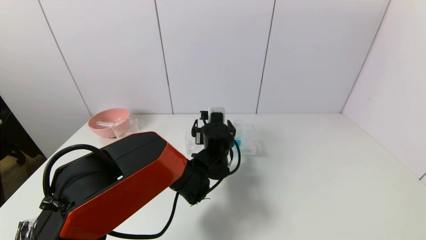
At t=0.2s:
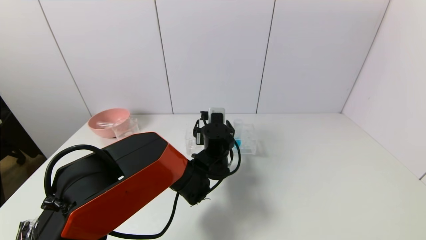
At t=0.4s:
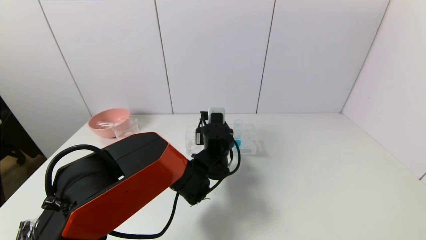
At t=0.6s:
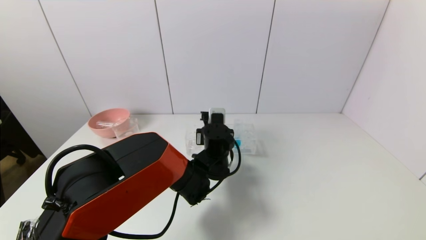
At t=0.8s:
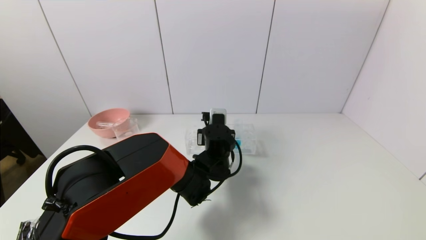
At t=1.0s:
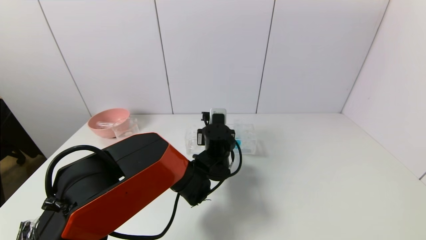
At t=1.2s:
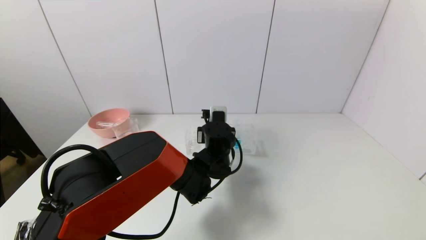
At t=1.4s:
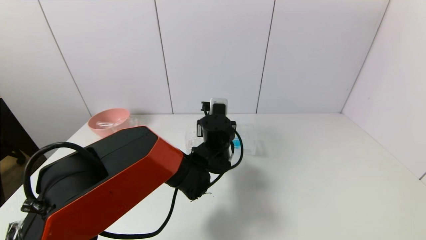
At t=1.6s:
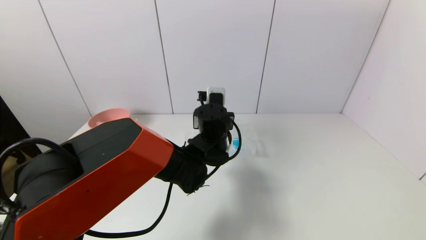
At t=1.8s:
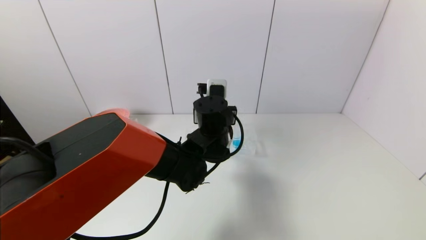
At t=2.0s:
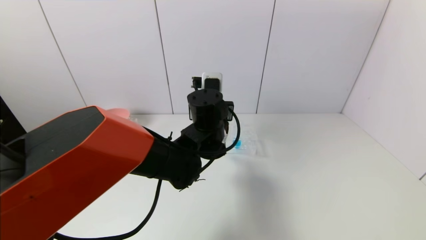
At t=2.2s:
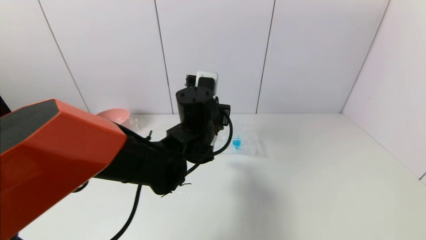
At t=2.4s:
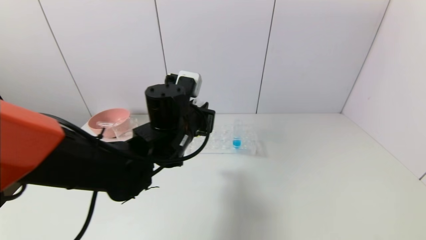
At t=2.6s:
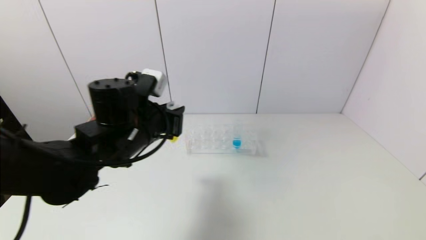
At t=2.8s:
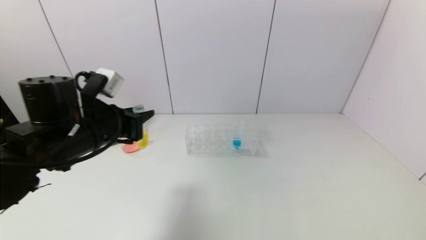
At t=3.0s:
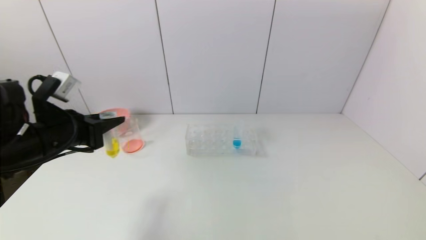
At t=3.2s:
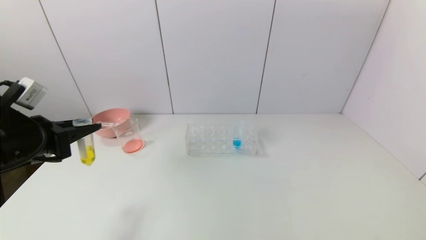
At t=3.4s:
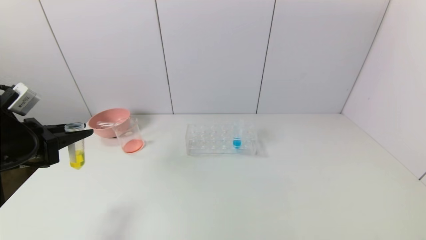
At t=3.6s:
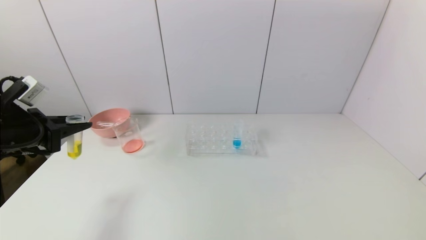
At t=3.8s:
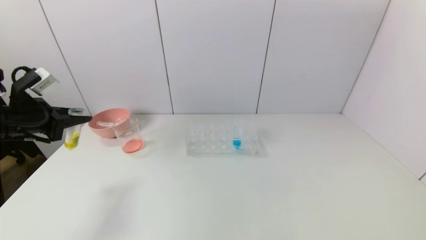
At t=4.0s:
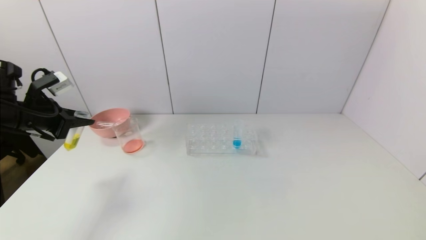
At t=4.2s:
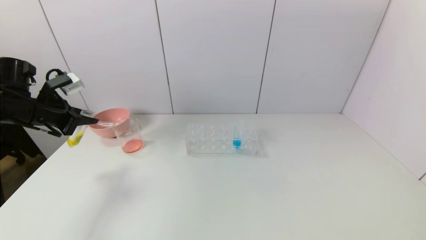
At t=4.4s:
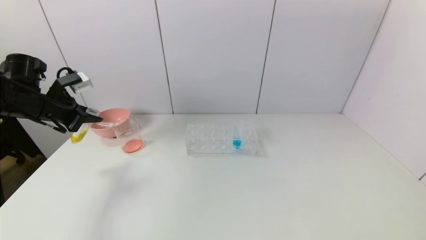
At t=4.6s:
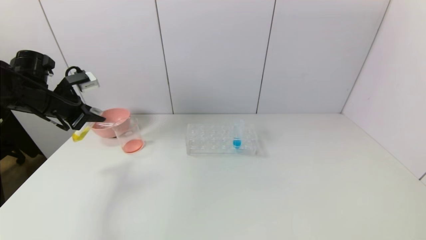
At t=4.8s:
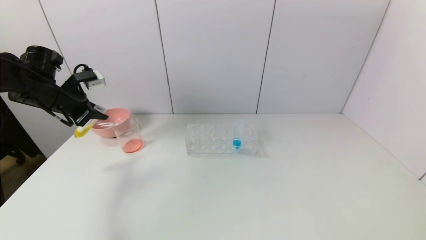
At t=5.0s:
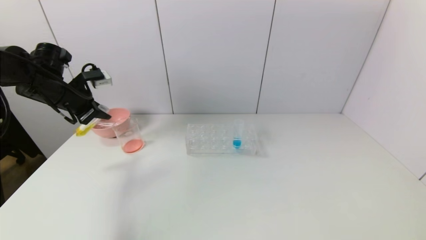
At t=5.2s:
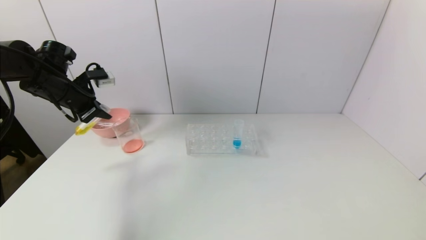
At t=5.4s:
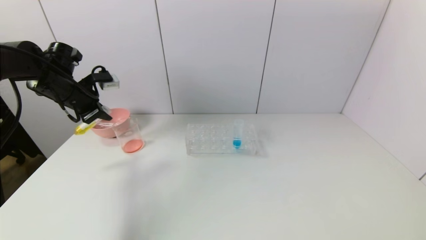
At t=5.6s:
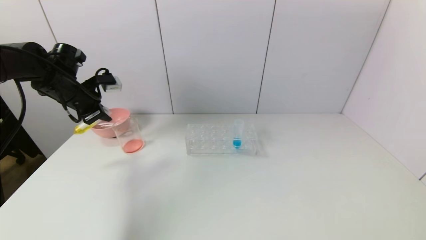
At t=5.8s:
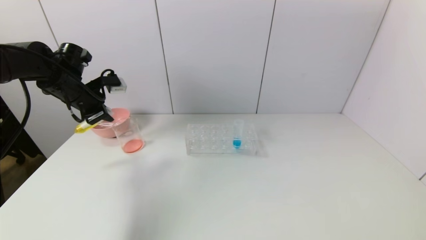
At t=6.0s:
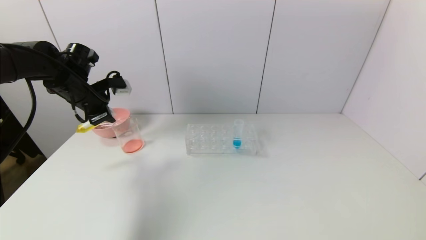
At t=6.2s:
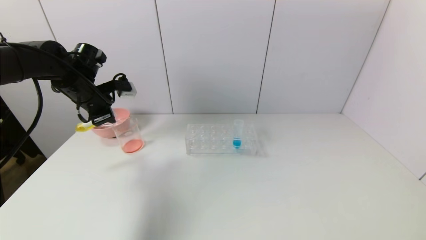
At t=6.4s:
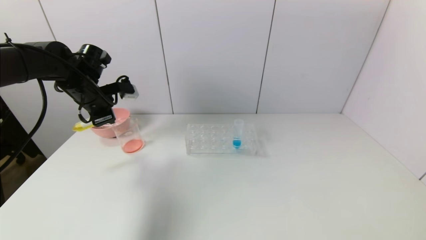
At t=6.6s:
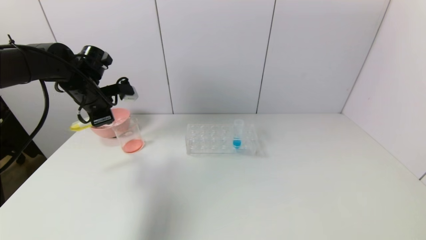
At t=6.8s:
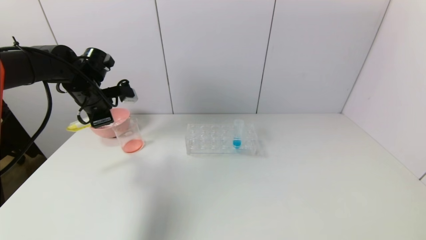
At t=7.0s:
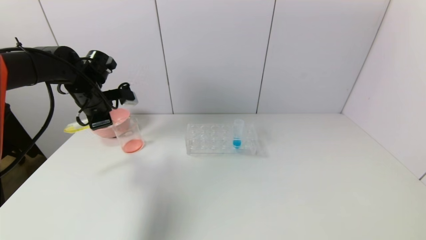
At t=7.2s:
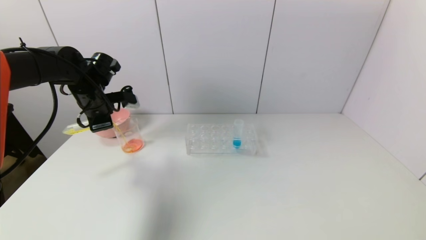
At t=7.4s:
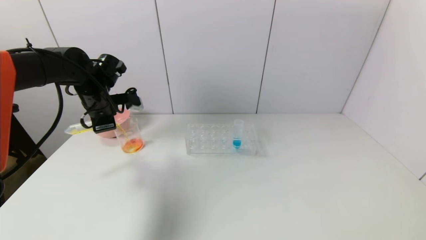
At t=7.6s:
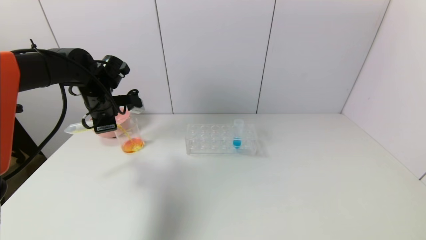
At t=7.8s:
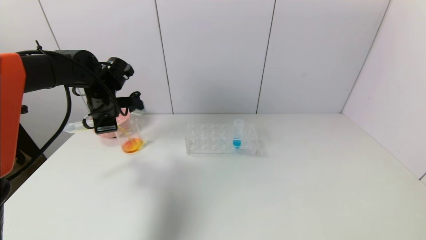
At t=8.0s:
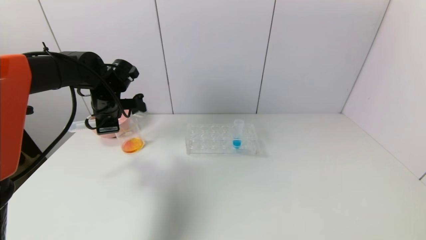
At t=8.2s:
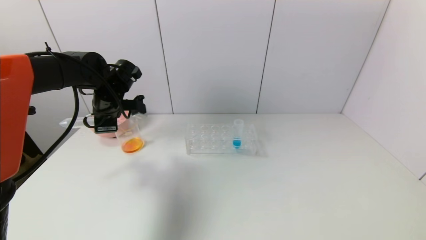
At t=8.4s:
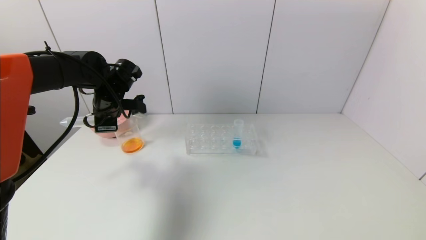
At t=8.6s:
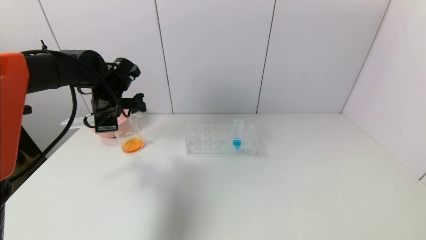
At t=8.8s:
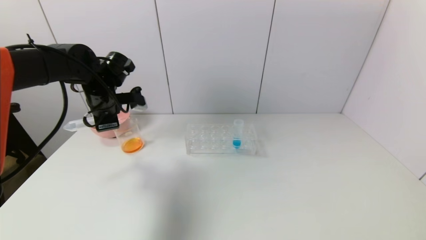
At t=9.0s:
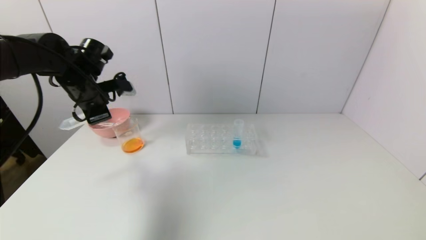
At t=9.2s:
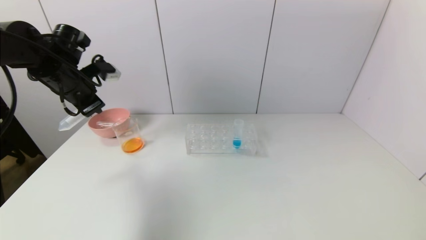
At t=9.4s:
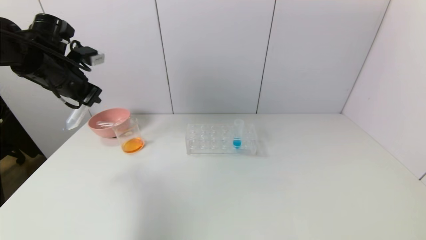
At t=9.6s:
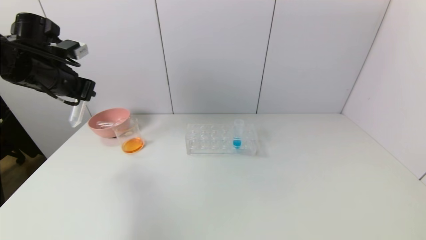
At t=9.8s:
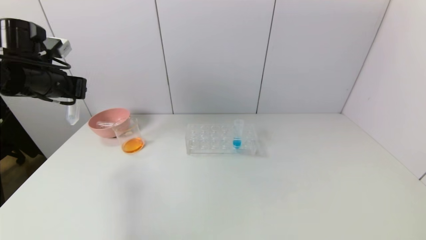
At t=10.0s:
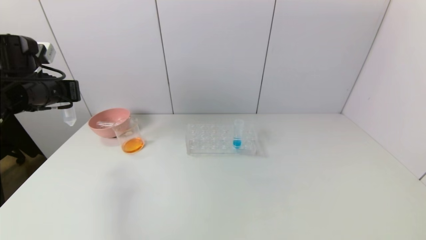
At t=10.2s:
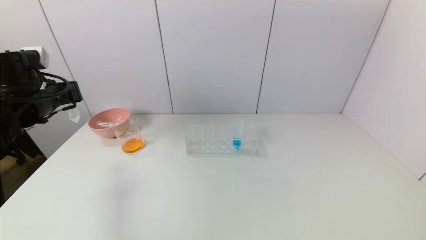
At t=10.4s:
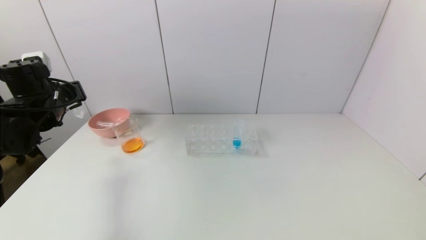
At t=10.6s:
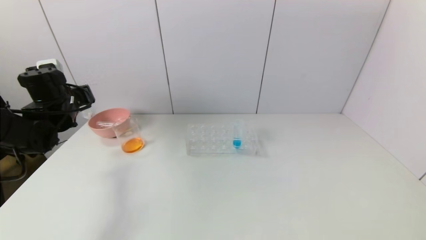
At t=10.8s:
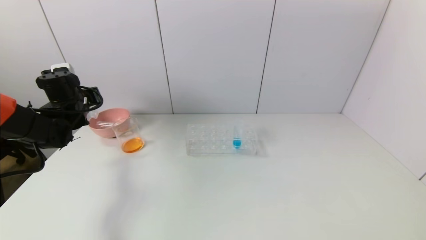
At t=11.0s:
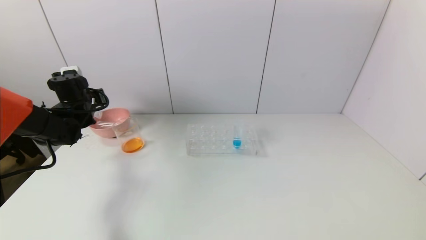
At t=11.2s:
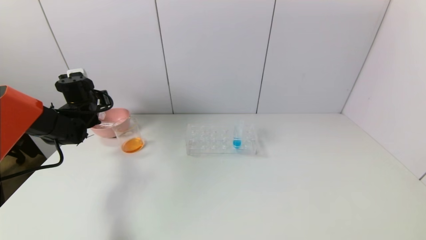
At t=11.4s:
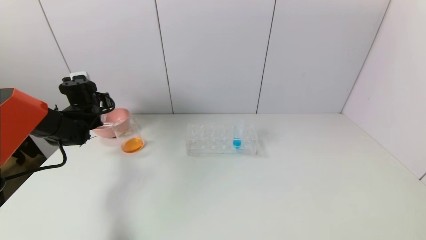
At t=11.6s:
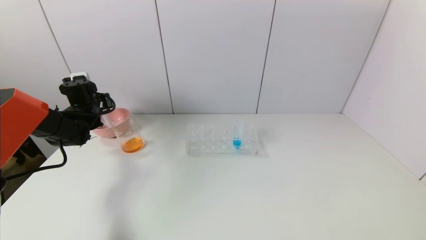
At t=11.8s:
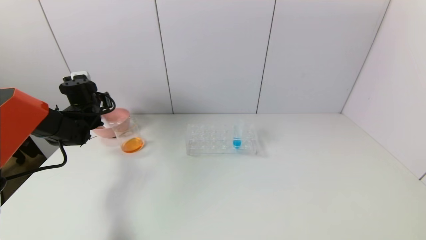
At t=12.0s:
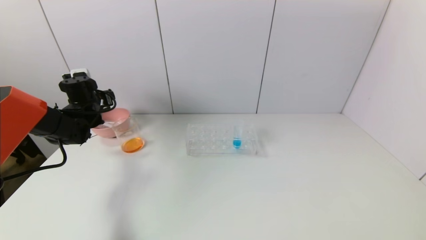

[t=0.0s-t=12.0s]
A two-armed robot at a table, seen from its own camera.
Task of the whole recording: pick up the test tube with yellow pigment and the test tube with red pigment by grippers and pour them into the beaker.
Step, t=1.0s to t=8.4s: Pour the yellow reagent into the graduated cylinder with the left gripper.
Step, t=8.6s to t=11.8s: Place the test tube into the pink bowl with the left gripper.
t=0.0s to t=1.6s: The left gripper shifts some 5 cm upward, and closes its fingers.
t=1.6s to t=3.0s: The left gripper moves to the left, about 30 cm.
t=3.0s to t=4.4s: The left gripper travels forward and to the left by roughly 15 cm.
t=4.4s to t=6.0s: The left gripper goes about 5 cm to the right.
t=6.0s to t=7.6s: The left gripper shifts by about 5 cm.
t=7.6s to t=9.0s: There are only small adjustments of the grippers.
t=9.0s to t=10.4s: The left gripper is displaced to the left by some 5 cm.
t=10.4s to t=12.0s: The left gripper heads forward and downward, covering about 10 cm, and opens.

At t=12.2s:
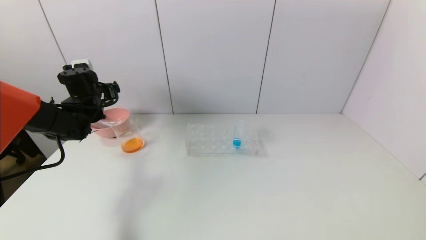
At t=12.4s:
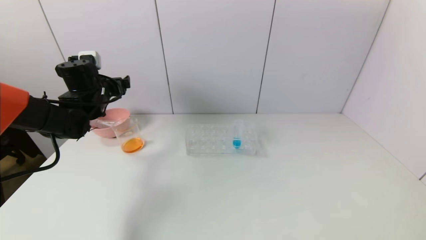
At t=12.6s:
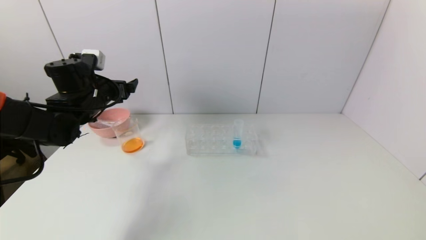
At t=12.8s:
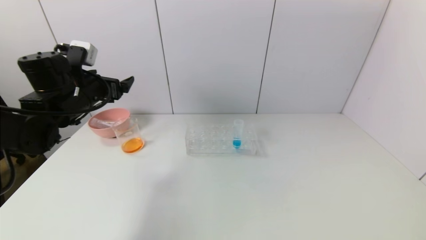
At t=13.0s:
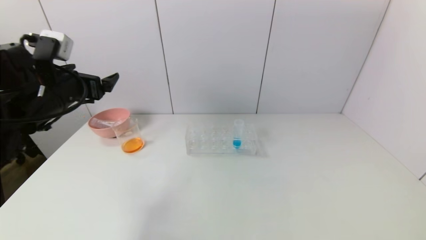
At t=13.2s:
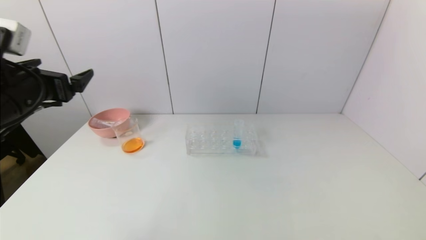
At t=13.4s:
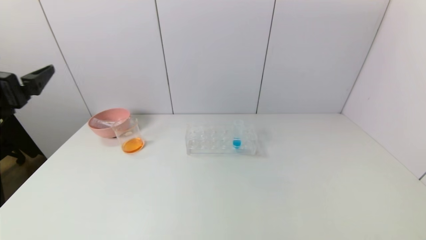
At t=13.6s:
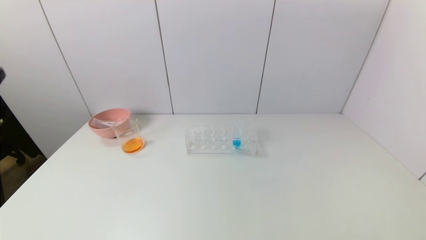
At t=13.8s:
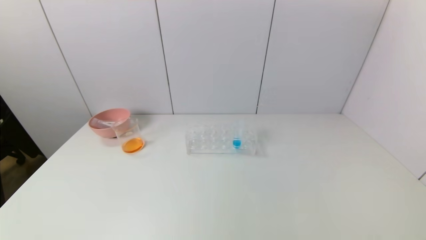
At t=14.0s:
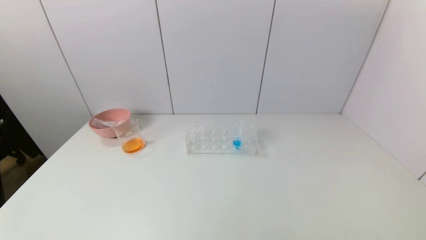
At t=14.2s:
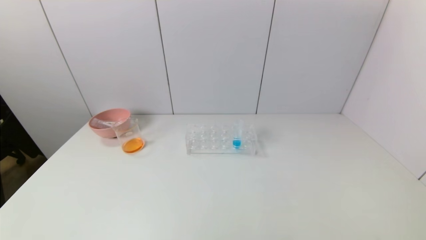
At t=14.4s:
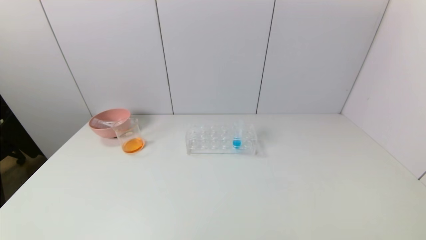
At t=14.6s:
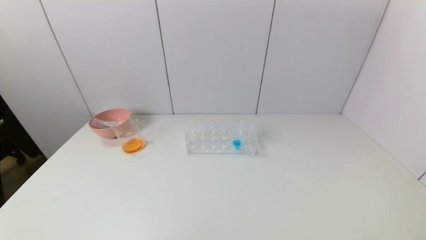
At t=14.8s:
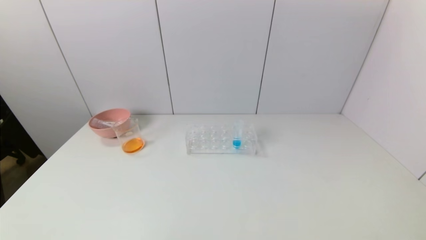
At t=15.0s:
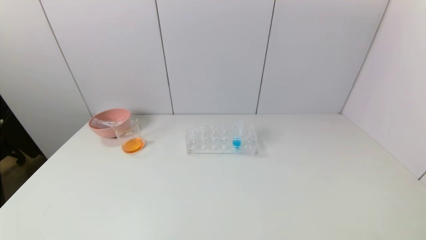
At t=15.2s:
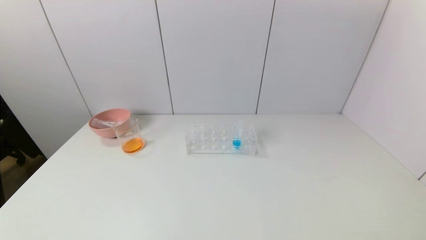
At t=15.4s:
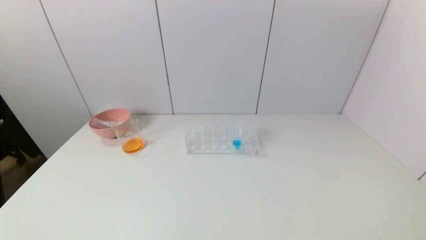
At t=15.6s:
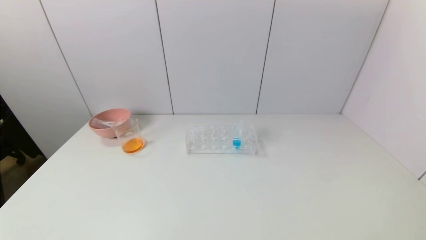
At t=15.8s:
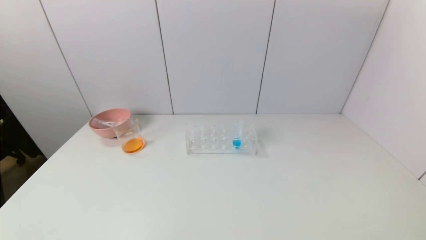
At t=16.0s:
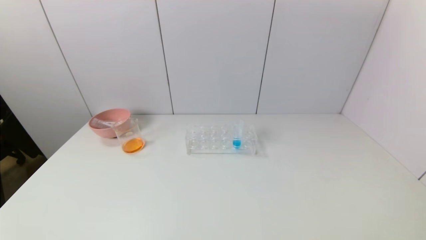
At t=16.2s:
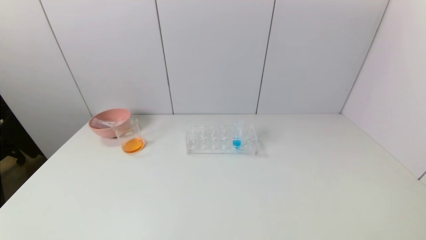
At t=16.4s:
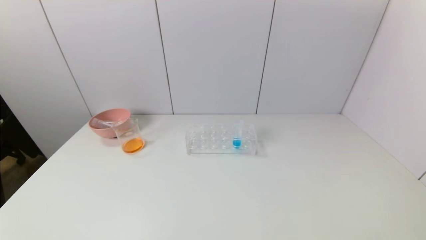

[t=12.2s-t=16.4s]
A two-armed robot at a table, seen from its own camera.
Task of the whole recording: pick up the test tube with yellow pigment and the test tube with red pigment by grippers and pour them into the beaker.
t=12.2s to t=13.6s: The left gripper shifts roughly 35 cm backward.
t=15.0s to t=16.4s: Both grippers stay about where they are.
